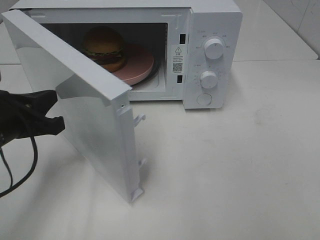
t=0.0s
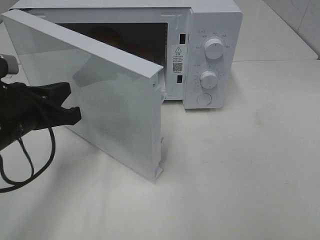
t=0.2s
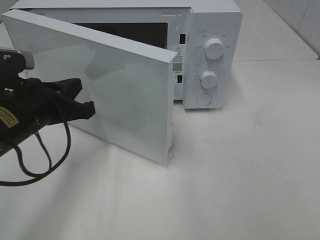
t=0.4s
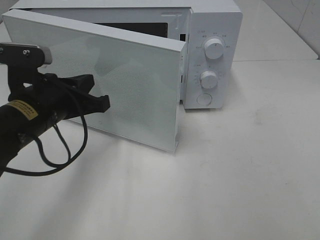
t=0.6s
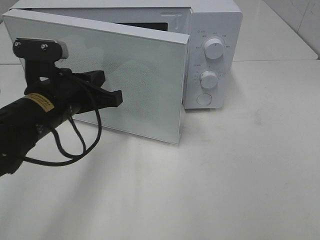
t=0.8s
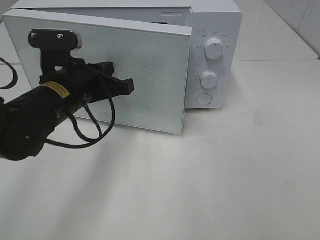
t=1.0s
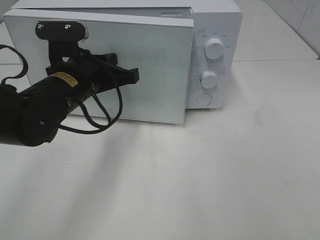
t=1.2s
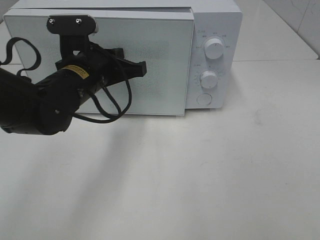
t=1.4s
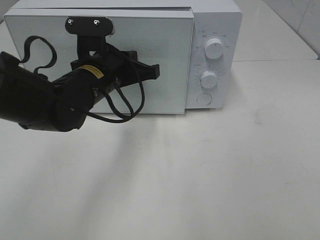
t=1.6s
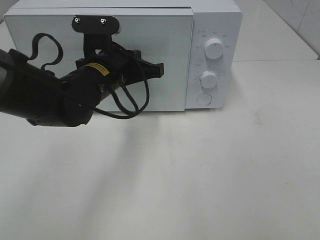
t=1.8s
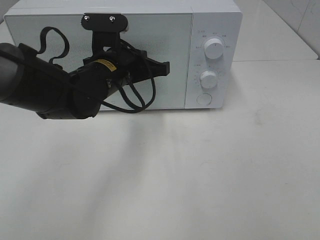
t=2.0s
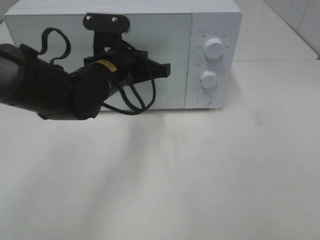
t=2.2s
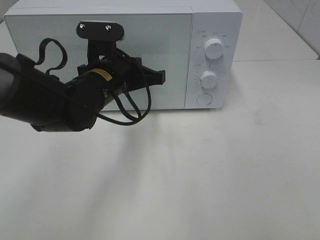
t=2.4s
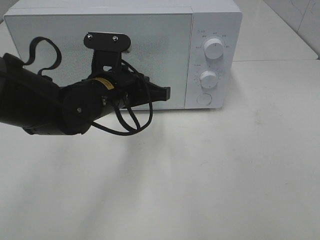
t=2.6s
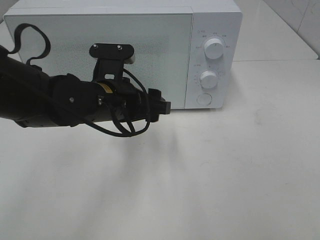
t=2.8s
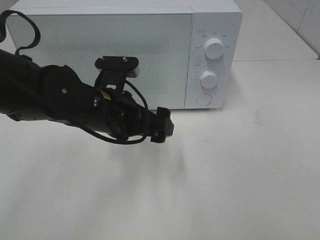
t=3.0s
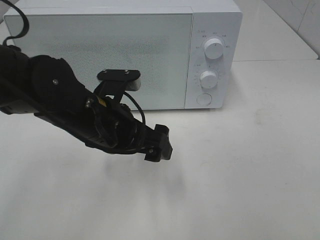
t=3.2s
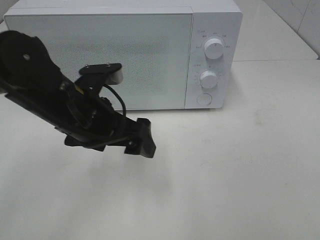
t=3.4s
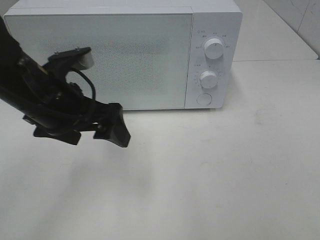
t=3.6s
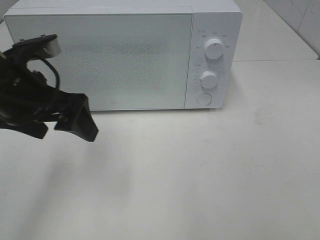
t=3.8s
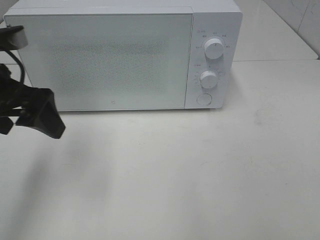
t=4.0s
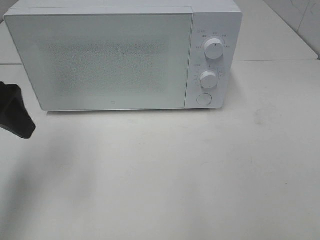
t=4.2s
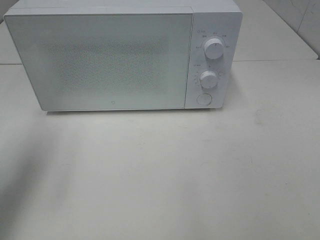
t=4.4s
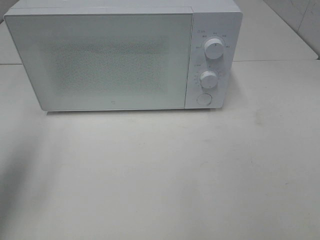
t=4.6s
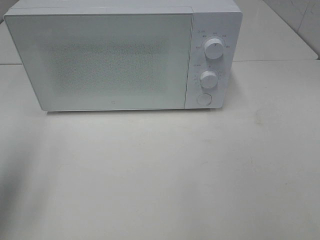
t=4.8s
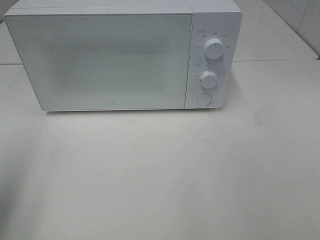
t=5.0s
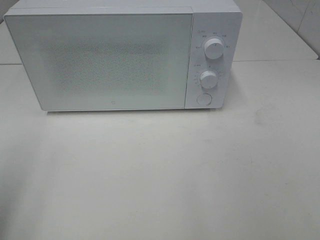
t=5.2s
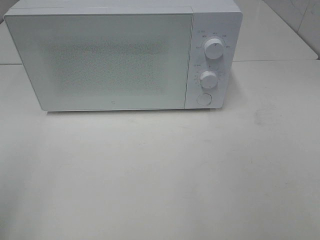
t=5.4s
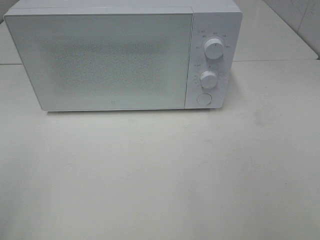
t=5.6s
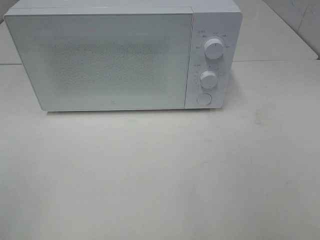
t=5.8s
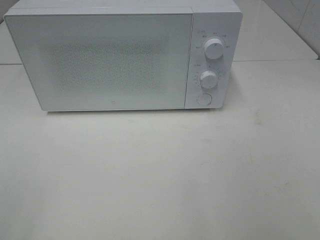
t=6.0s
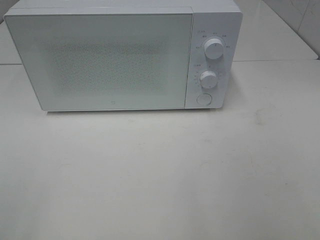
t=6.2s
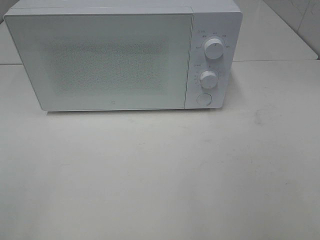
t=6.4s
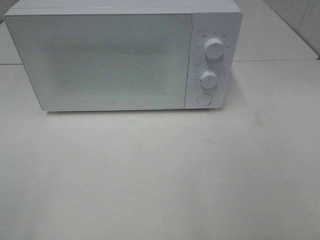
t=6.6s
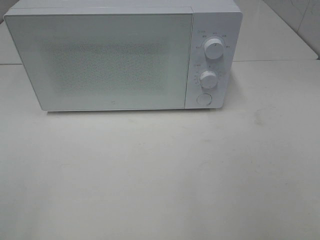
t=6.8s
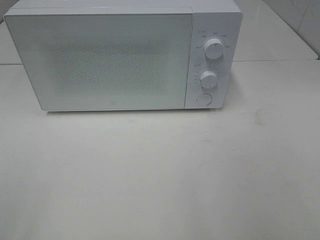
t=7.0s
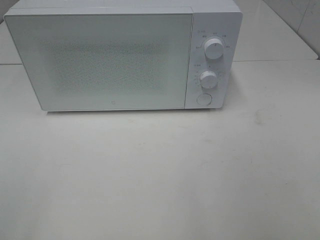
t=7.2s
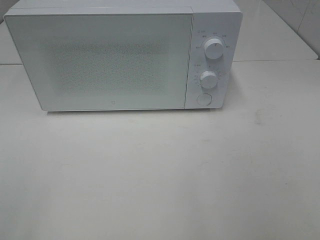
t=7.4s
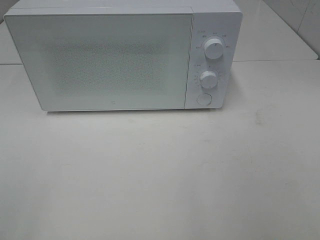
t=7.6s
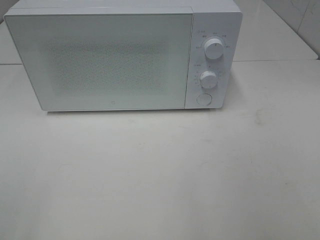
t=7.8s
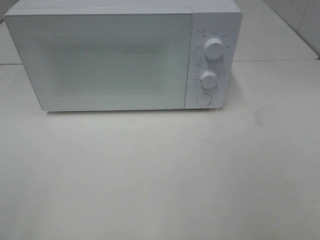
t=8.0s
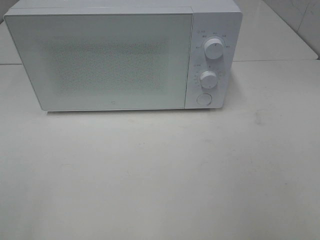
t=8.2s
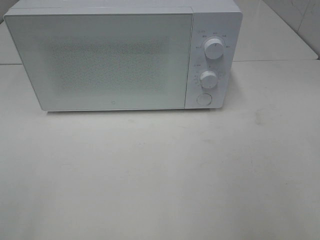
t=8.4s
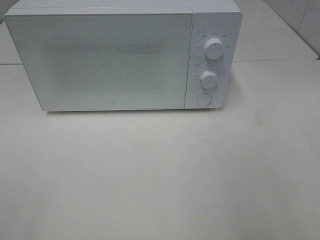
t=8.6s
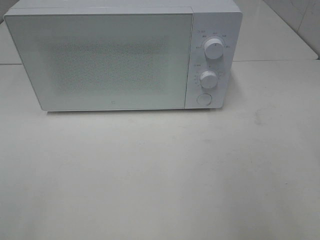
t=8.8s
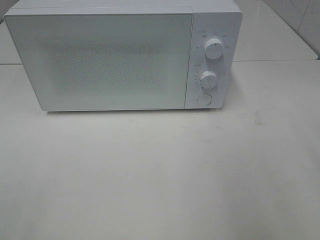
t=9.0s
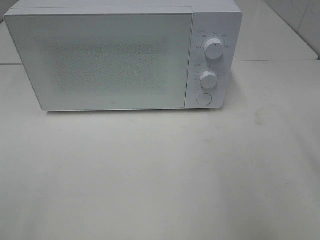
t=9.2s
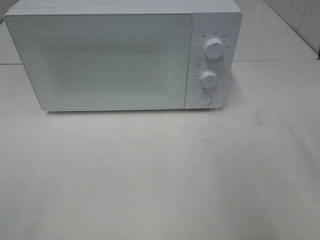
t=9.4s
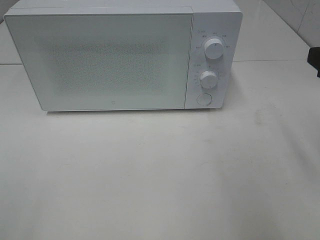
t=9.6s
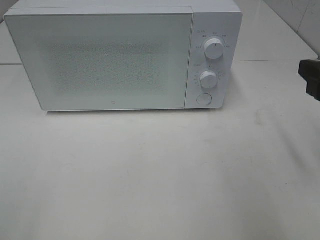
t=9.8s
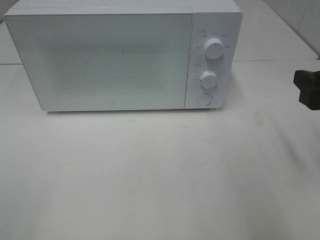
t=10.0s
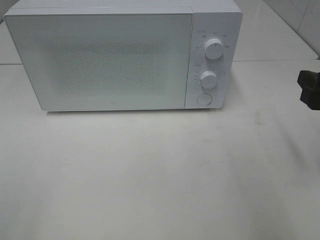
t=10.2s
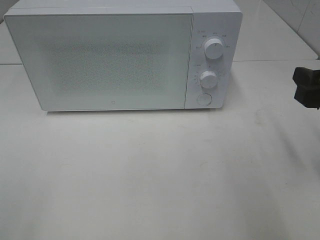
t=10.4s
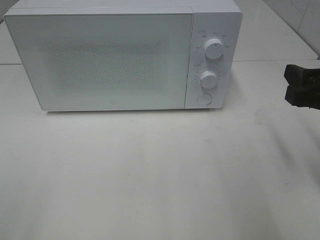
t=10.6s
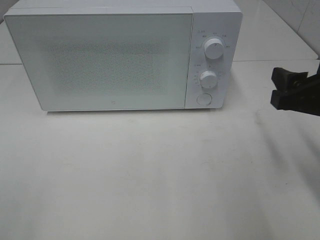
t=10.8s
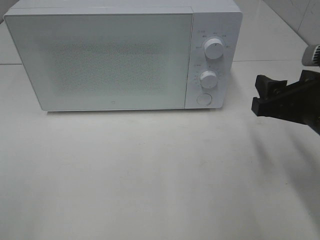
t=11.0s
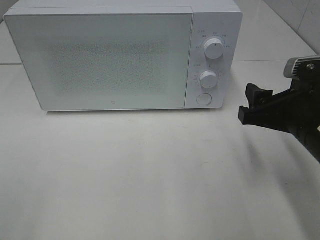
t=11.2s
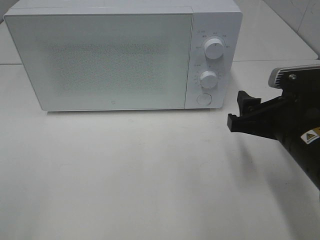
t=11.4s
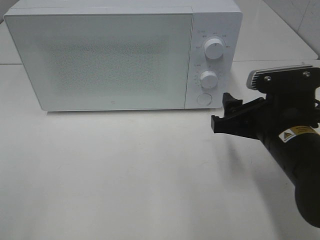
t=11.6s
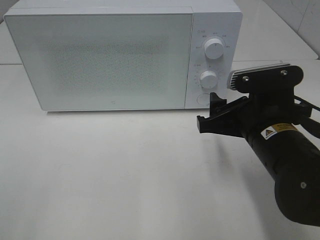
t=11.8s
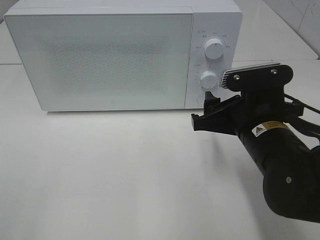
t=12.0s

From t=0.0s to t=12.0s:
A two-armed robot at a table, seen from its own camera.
Task of the whole recording: Heat the burger.
Step, from t=0.0s to t=2.8s: Left hand: close the microwave door.
From t=0.0s to t=1.6s: The left gripper goes some 15 cm to the right and forward.
From t=1.6s to t=3.0s: The left gripper heads backward, covering some 5 cm, and opens up.
From t=3.0s to t=4.4s: The left gripper travels to the left and upward by about 25 cm.
From t=4.4s to t=6.0s: The left gripper shifts about 25 cm backward.
From t=6.0s to t=7.6s: Both grippers stay put.
From t=9.0s to t=10.4s: The right gripper shifts some 10 cm downward and forward.
From t=10.4s to t=12.0s: The right gripper heads to the left and downward, covering approximately 15 cm.

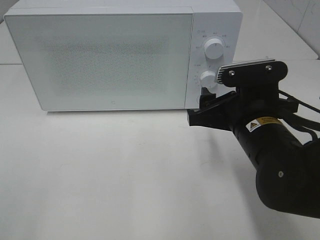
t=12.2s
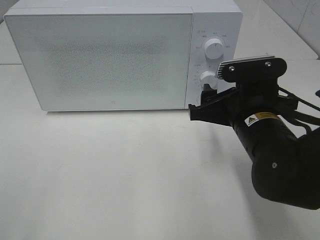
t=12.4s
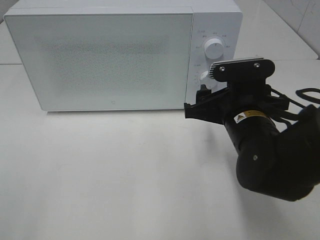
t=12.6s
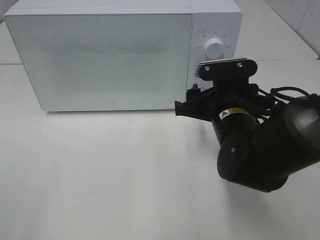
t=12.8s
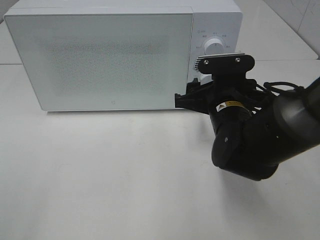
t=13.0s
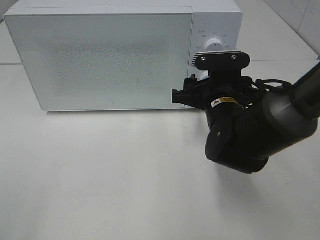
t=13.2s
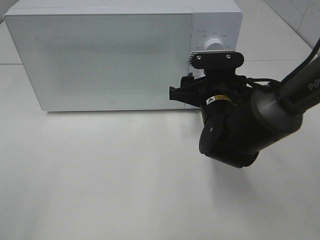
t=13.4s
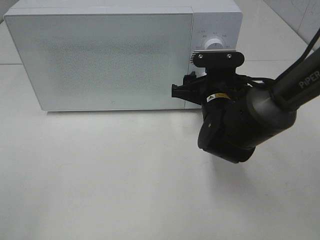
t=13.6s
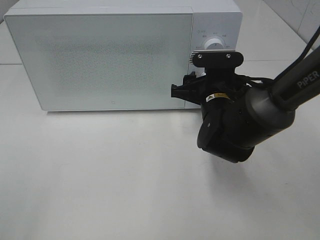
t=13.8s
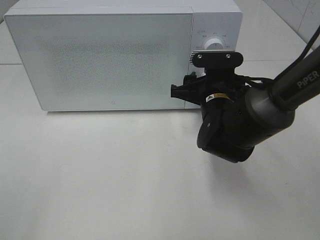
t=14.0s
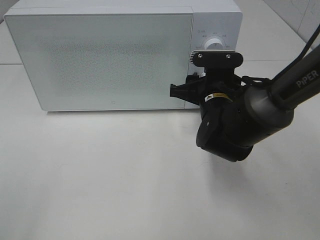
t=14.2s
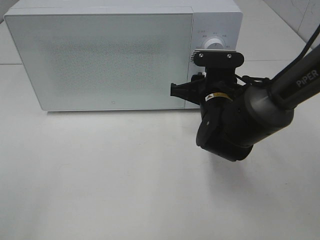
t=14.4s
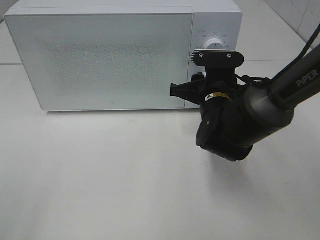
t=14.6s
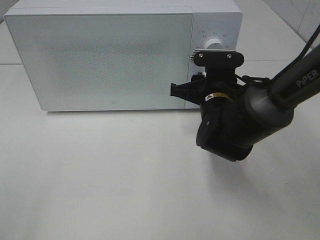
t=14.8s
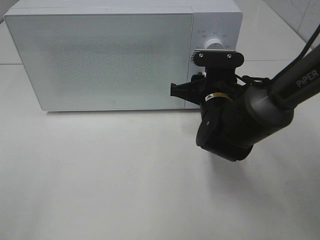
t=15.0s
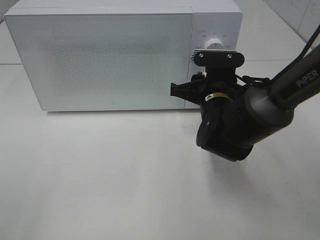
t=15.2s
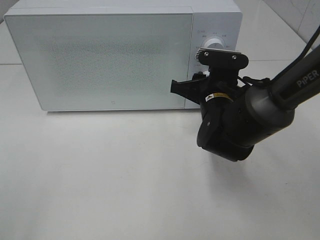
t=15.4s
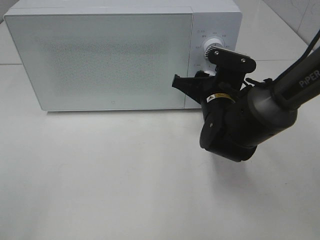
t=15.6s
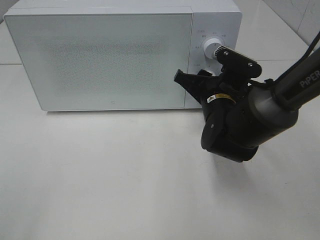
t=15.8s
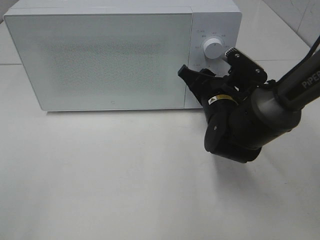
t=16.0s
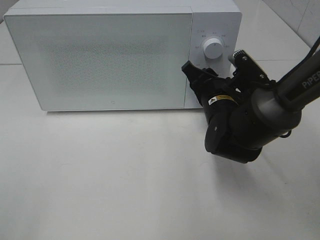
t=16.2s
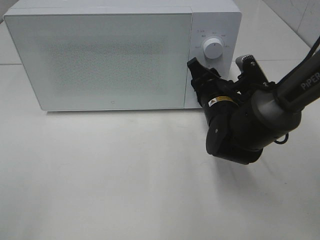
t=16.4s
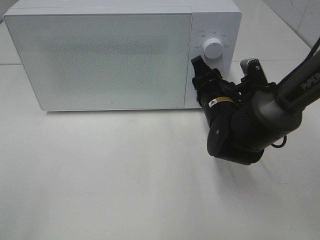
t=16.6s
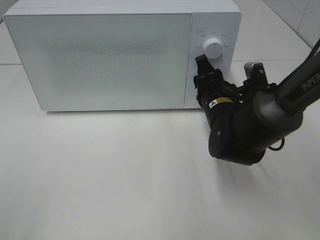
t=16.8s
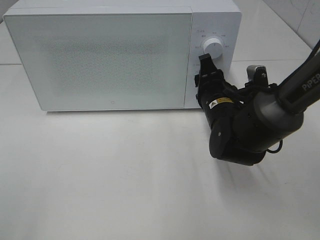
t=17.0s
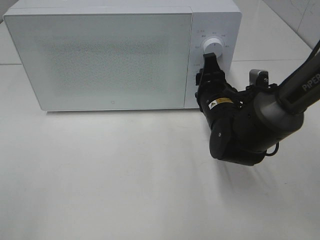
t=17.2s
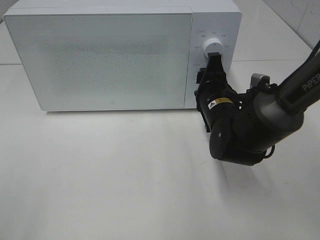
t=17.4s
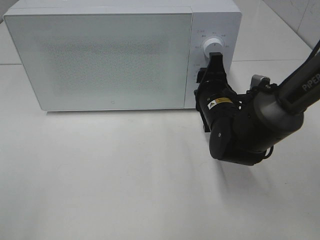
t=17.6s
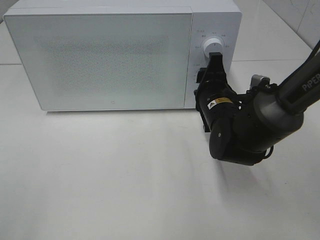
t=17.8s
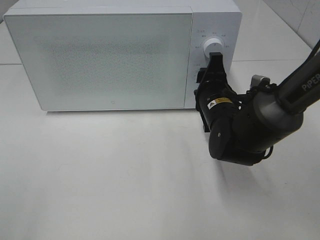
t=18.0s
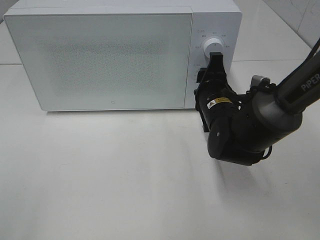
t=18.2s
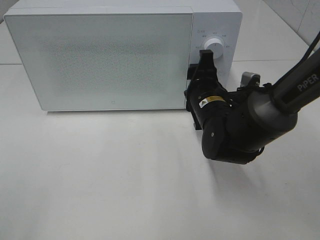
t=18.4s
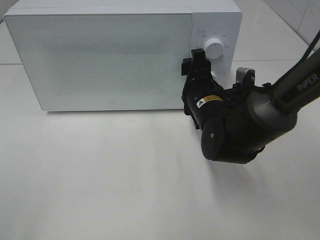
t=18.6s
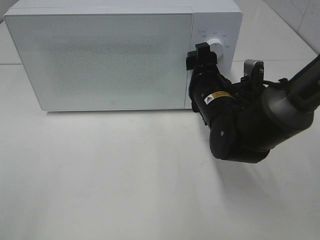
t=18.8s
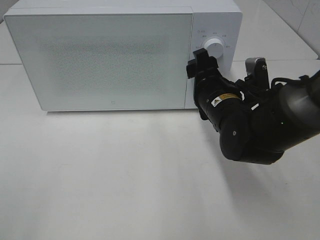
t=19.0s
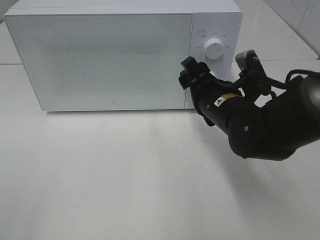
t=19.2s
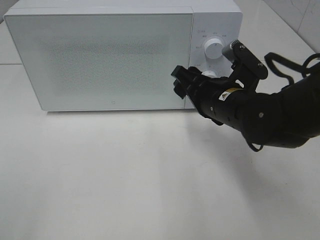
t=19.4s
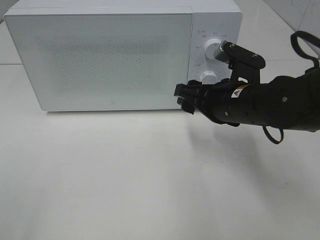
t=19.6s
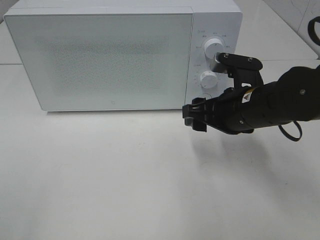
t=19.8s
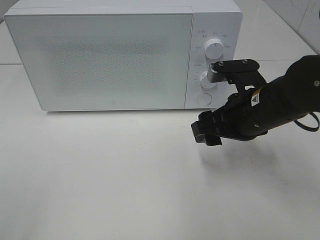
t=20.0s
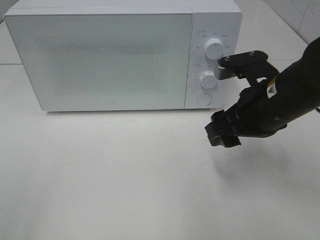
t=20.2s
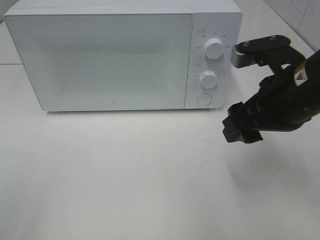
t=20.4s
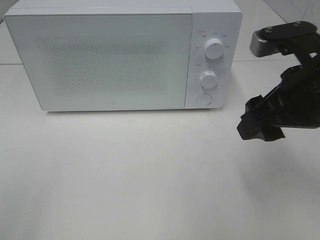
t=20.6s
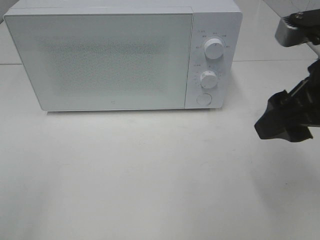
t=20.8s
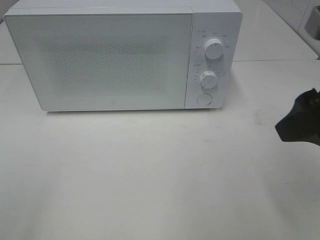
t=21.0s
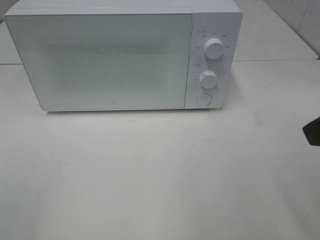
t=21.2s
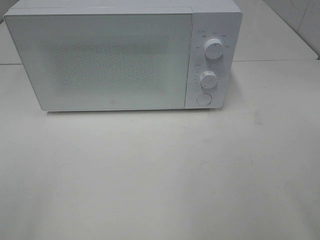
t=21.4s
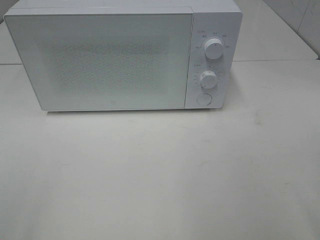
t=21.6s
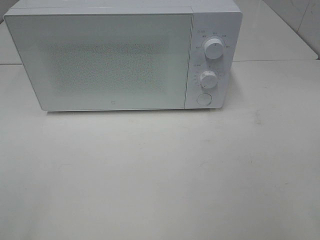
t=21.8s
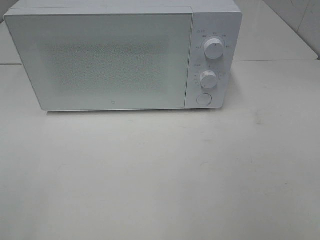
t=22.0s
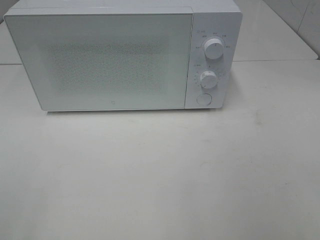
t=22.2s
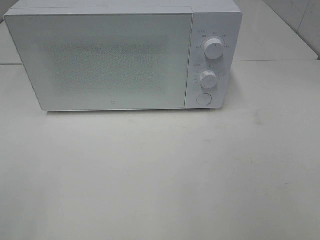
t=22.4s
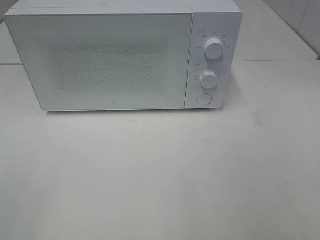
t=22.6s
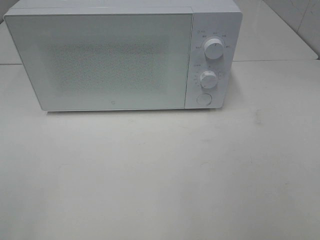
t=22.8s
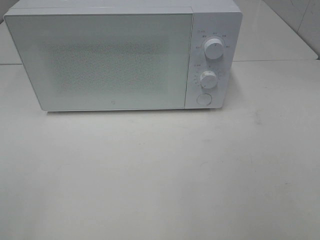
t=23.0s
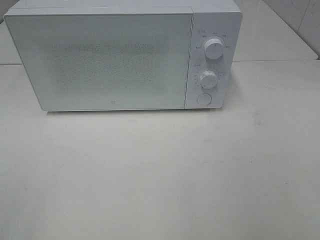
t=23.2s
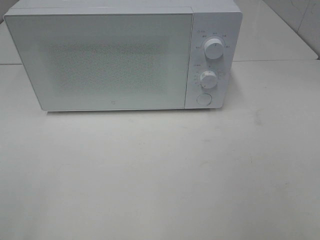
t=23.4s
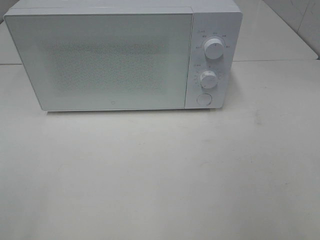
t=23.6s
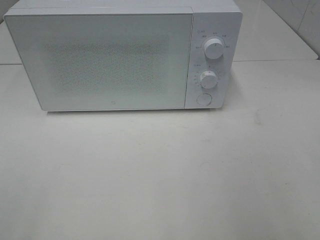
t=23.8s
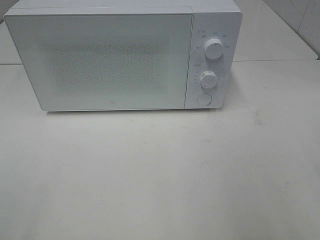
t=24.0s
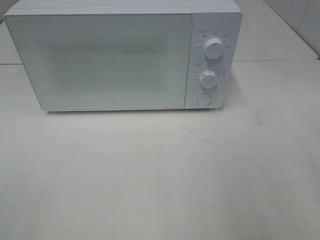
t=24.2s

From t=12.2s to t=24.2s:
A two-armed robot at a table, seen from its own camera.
Task of the whole recording: Heat the burger.
Step, from t=12.2s to t=18.4s: Right hand: twist timer button.
From t=12.2s to t=13.8s: The right gripper moves forward, about 10 cm.
From t=13.8s to t=15.2s: The two grippers keep their place.
From t=18.2s to t=19.8s: The right gripper shifts by some 5 cm.
From t=19.8s to t=21.2s: The right gripper shifts some 20 cm upward, backward and to the right.
